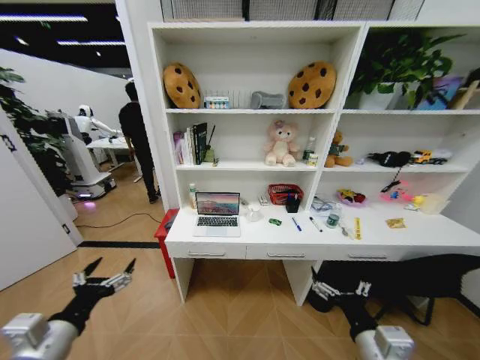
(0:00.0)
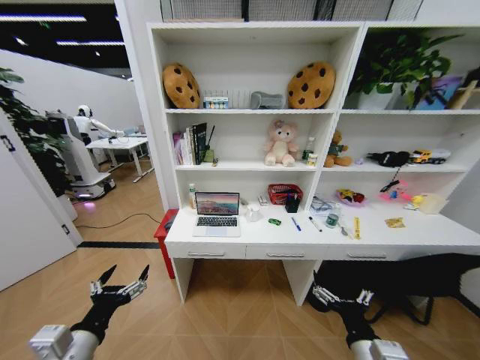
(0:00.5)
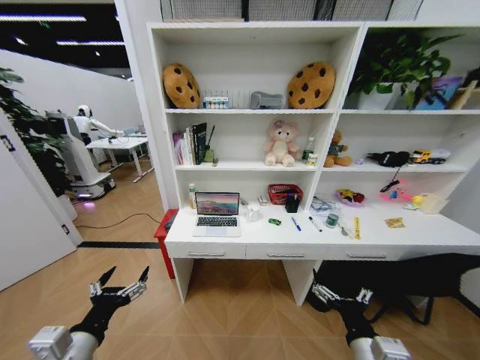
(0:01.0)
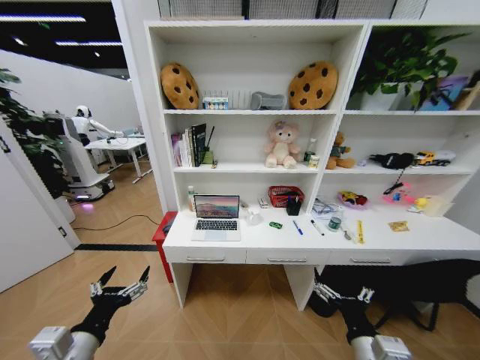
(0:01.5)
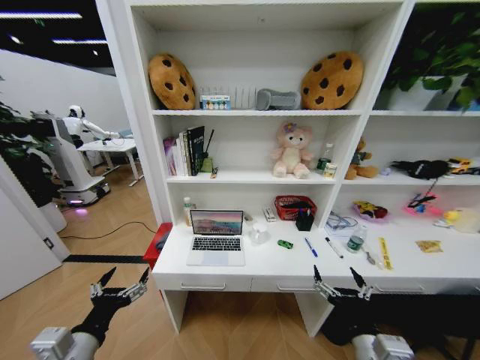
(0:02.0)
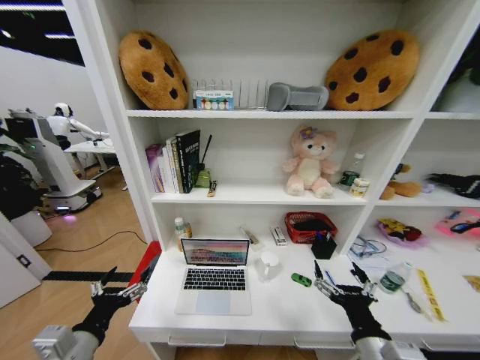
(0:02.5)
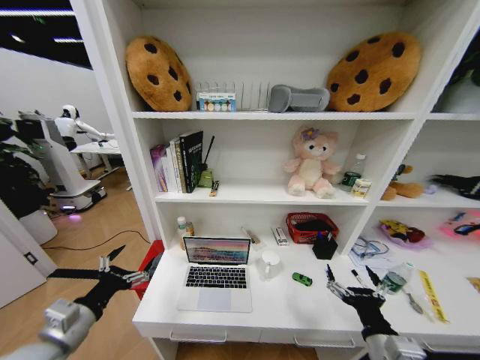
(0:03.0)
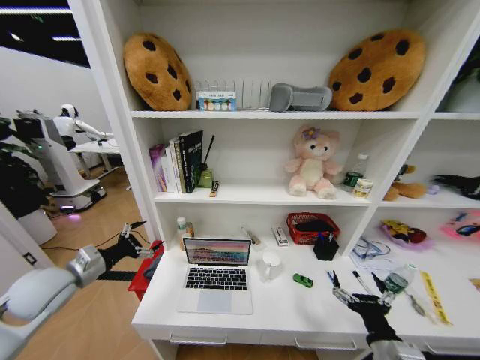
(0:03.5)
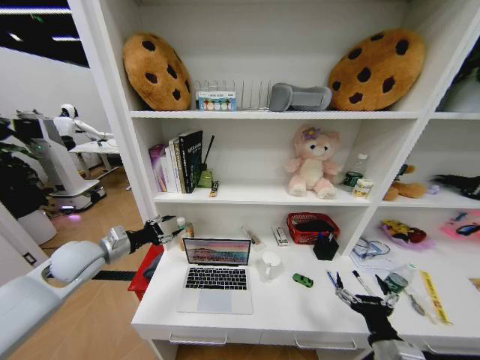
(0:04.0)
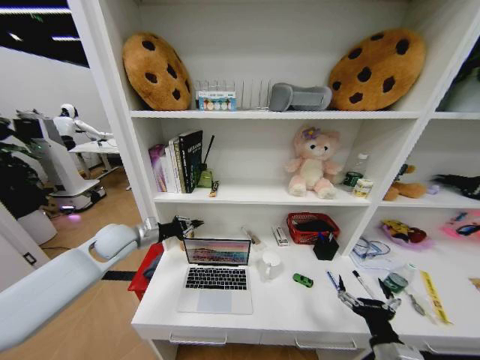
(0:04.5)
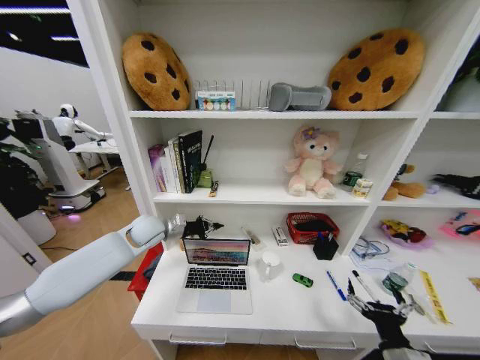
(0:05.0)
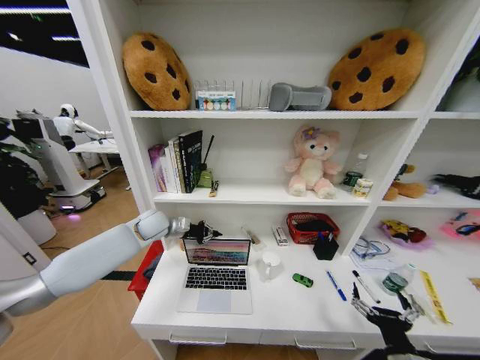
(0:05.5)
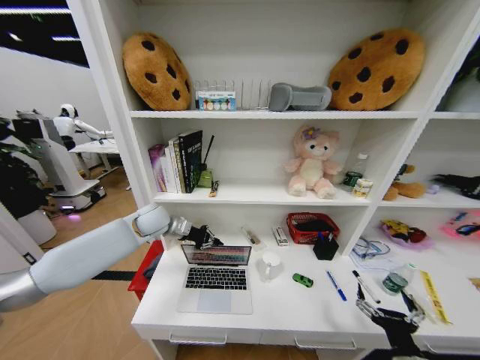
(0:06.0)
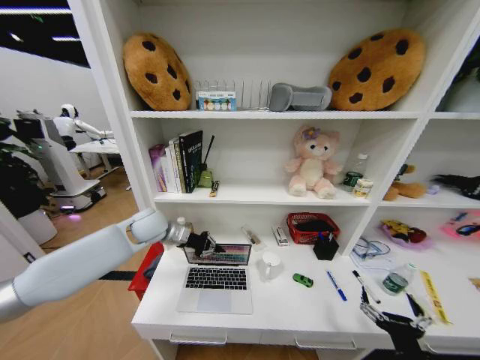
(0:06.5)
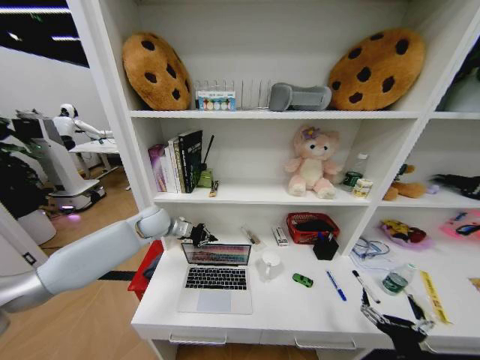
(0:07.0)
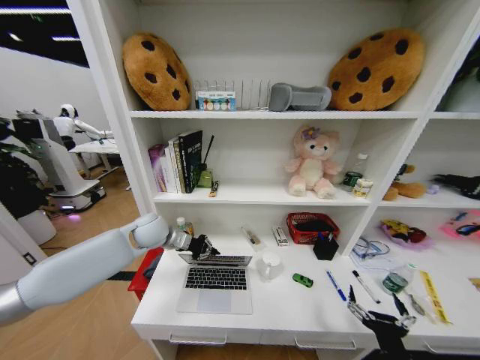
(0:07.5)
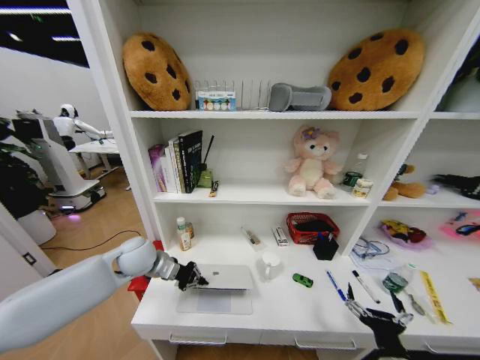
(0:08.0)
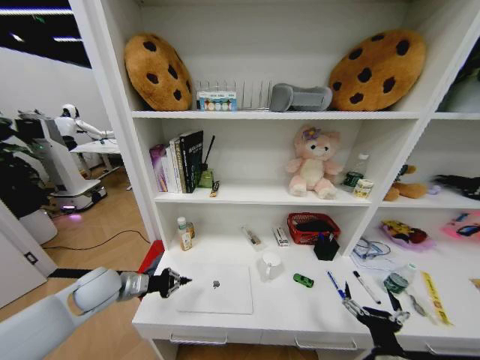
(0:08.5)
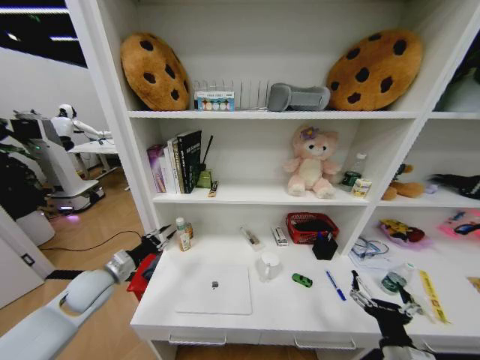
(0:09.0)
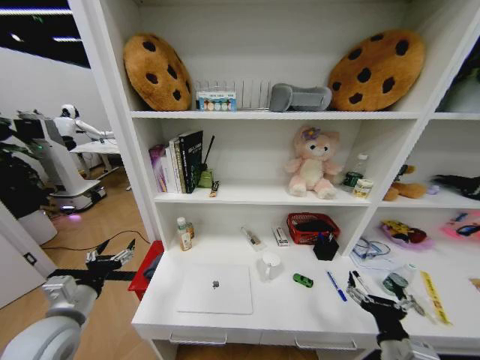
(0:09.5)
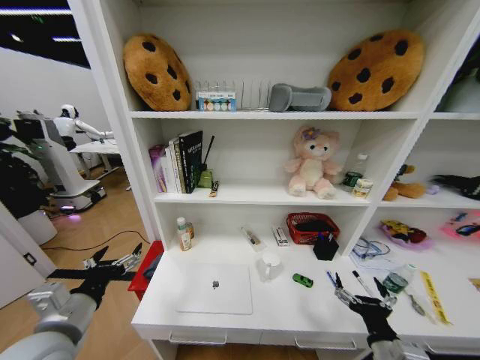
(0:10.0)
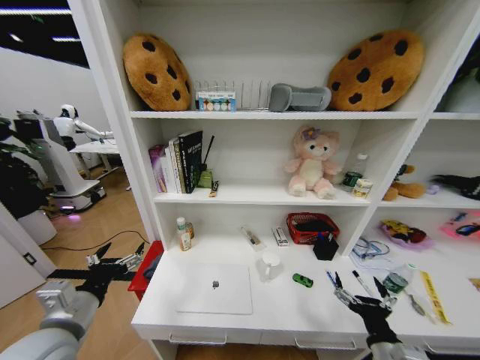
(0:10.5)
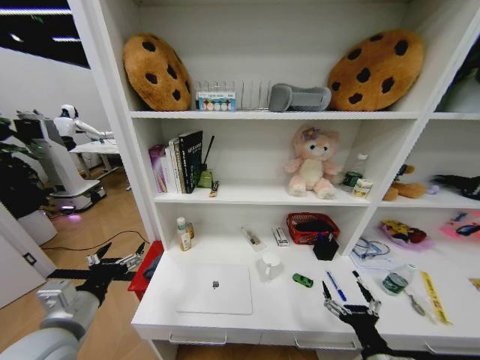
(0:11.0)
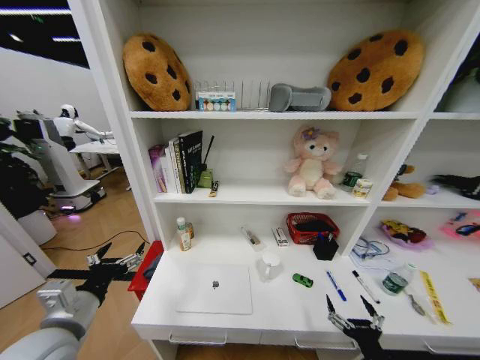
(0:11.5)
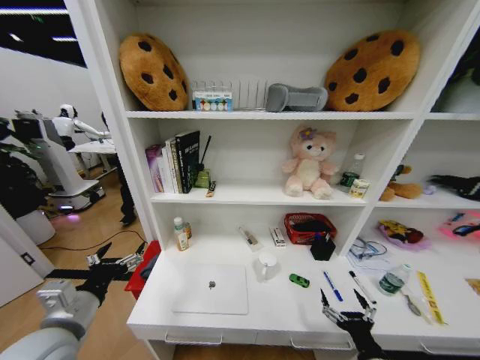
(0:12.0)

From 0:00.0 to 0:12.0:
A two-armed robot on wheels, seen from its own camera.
Task of the whole recording: Organize the objects on the table.
From 0:02.0 to 0:04.0: The right gripper shifts some 5 cm to the right, while the left gripper travels forward by some 25 cm, and closes its fingers.
From 0:04.0 to 0:06.0: The left gripper is displaced to the right and forward by approximately 20 cm, and closes its fingers. Meanwhile the right gripper shifts by roughly 5 cm.
From 0:06.0 to 0:08.0: The left gripper is displaced backward by approximately 10 cm.
From 0:08.0 to 0:10.0: The left gripper goes roughly 20 cm backward, and opens its fingers.
From 0:10.0 to 0:12.0: The right gripper heads downward, covering some 5 cm.

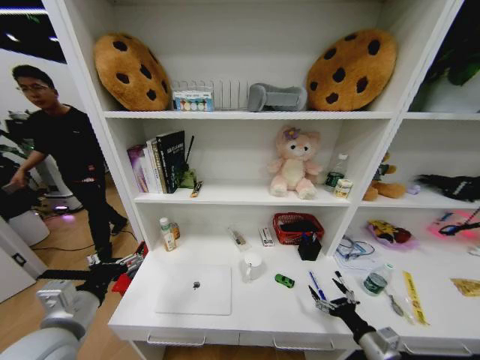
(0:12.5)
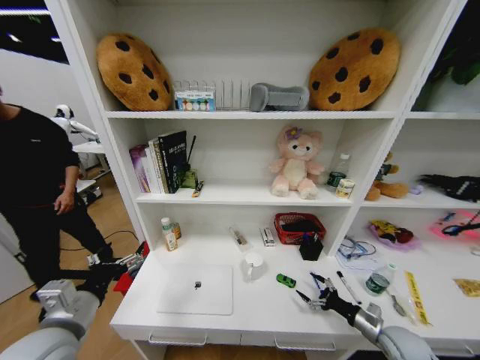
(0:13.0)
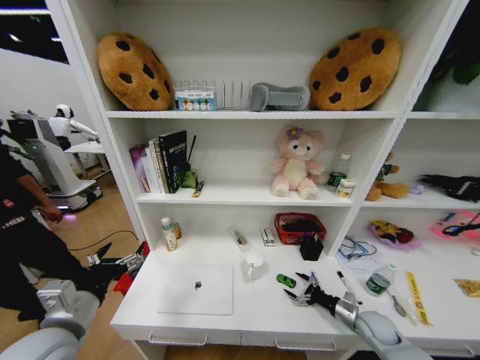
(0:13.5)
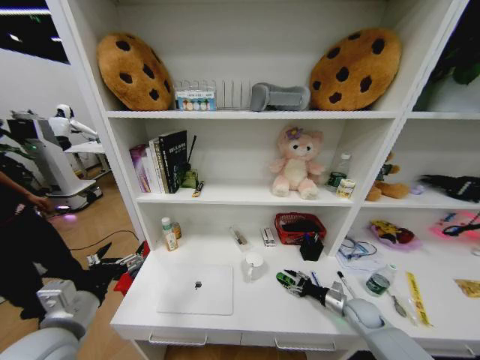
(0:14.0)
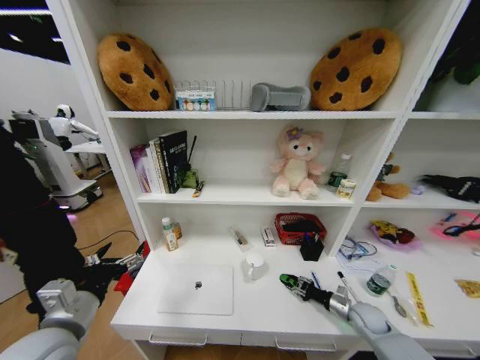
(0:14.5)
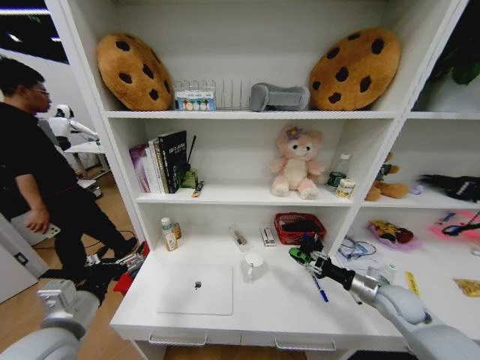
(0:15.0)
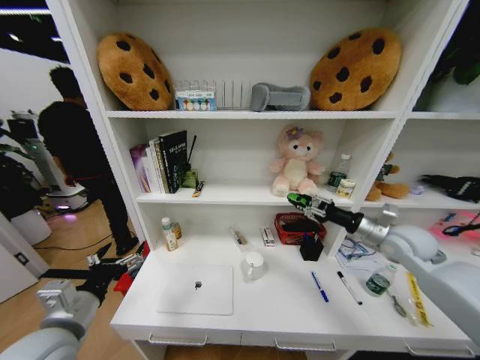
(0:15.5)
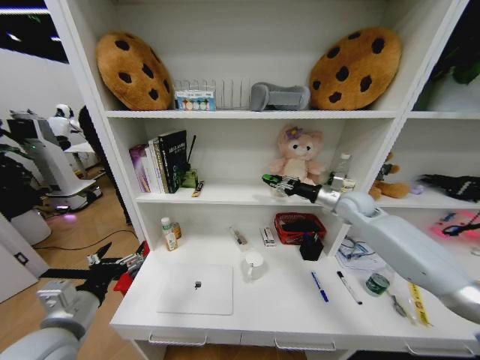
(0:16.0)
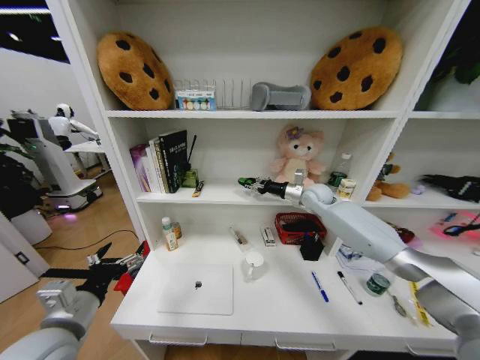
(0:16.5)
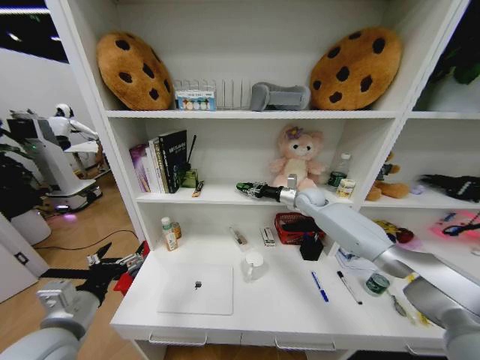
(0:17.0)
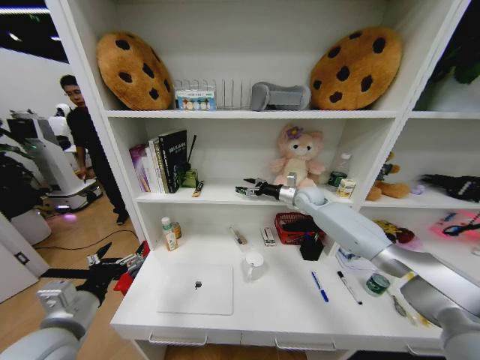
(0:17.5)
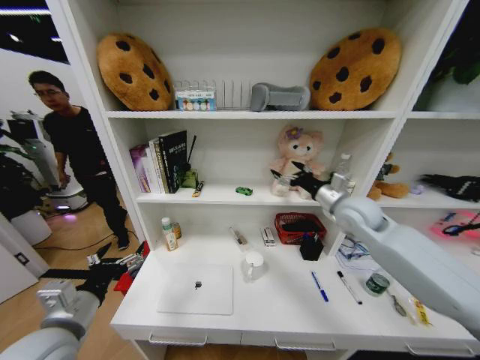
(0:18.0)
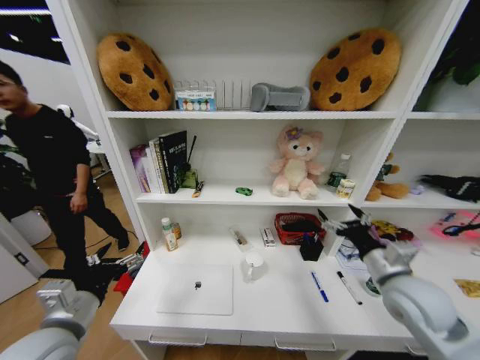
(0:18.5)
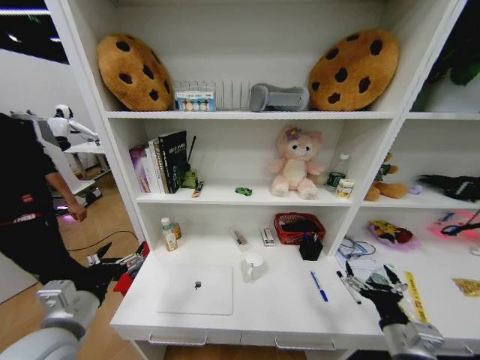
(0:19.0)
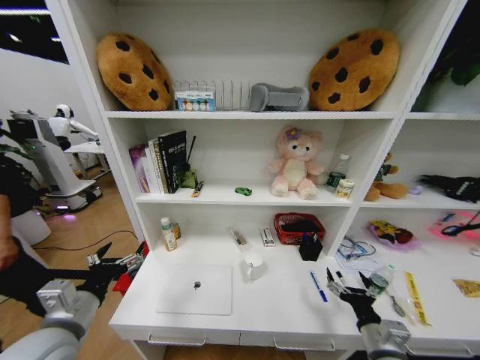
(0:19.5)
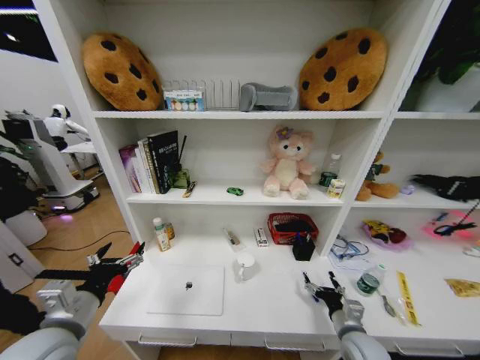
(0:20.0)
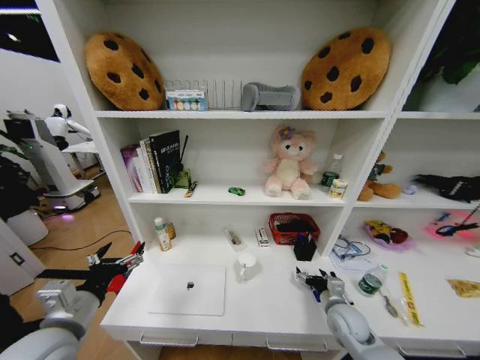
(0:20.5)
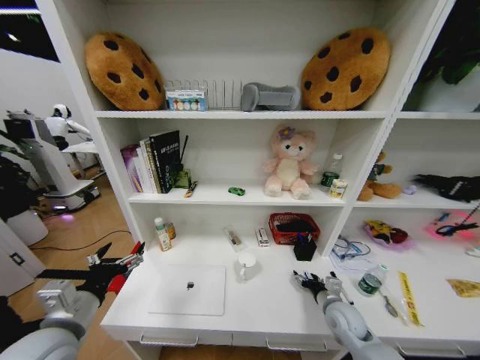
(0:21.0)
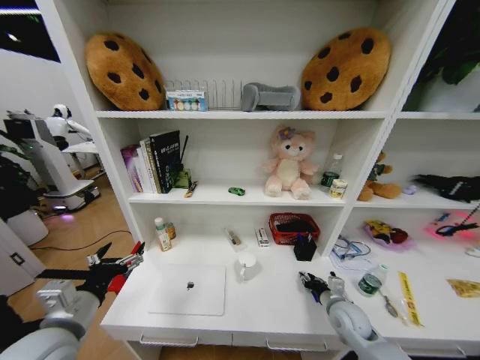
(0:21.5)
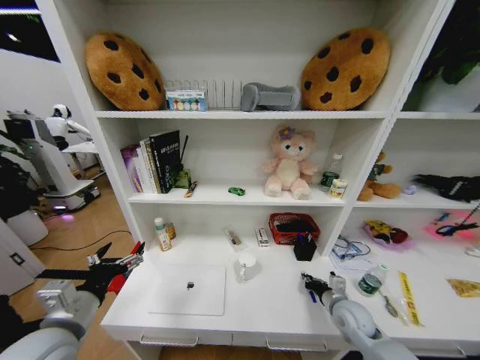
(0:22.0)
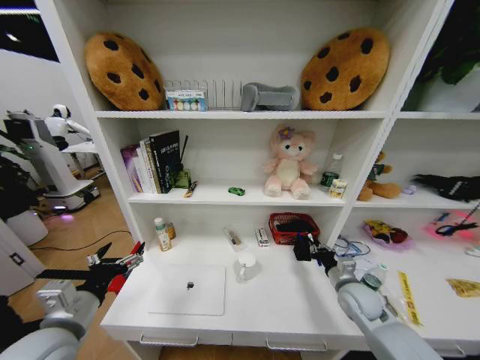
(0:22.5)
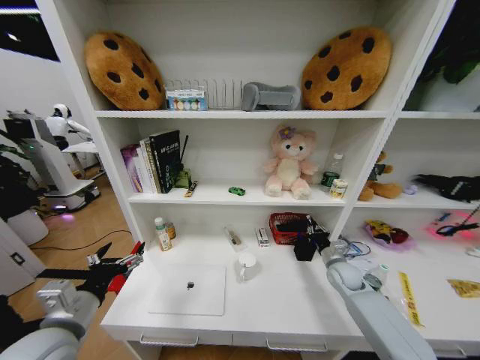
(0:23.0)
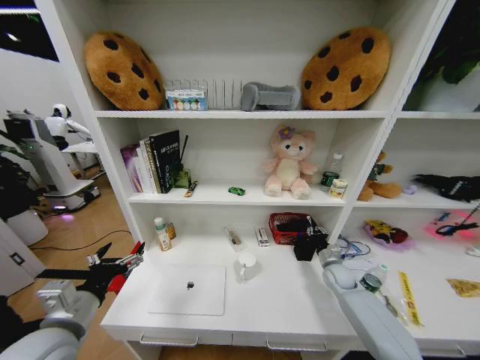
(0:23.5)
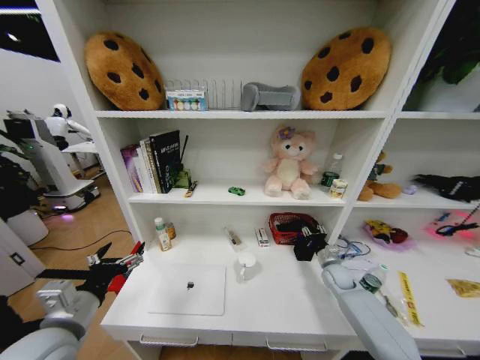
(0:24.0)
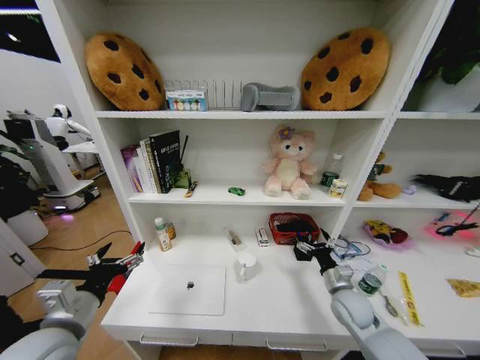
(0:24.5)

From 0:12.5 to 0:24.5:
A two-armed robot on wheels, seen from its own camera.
Task of the whole recording: Organize the objects on the table.
From 0:12.5 to 0:14.5: The right gripper shifts some 20 cm forward, to the right and downward, and closes up.
From 0:14.5 to 0:16.5: The right gripper goes some 40 cm upward, forward and to the left.
From 0:16.5 to 0:18.5: The right gripper moves backward, about 30 cm, and opens its fingers.
From 0:18.5 to 0:20.5: The right gripper is displaced downward by some 20 cm.
From 0:20.5 to 0:22.5: The right gripper goes roughly 5 cm upward, and closes.
From 0:22.5 to 0:24.5: The right gripper reaches some 10 cm forward, then returns, and opens its fingers.

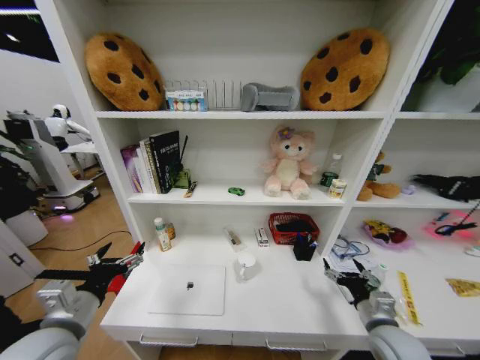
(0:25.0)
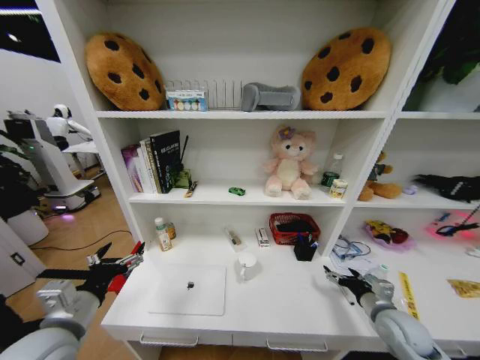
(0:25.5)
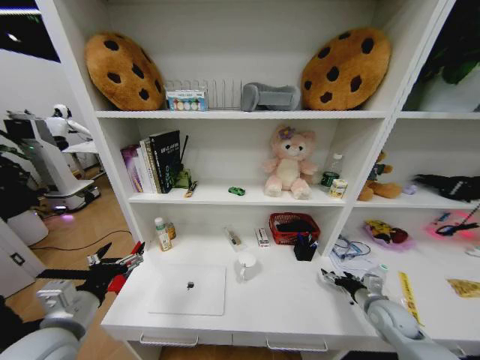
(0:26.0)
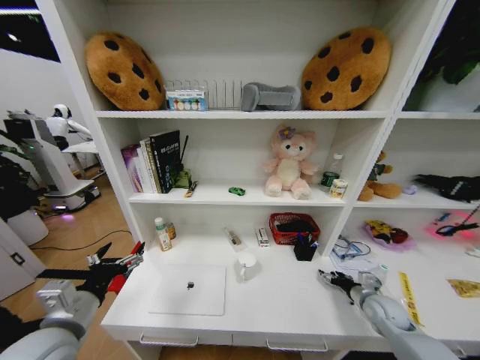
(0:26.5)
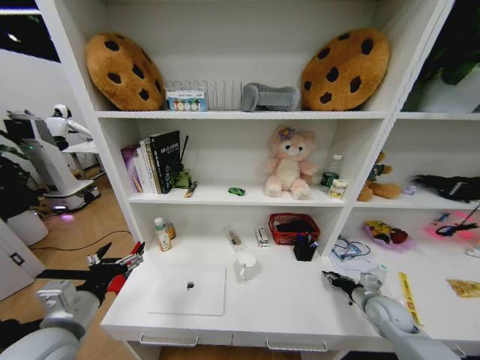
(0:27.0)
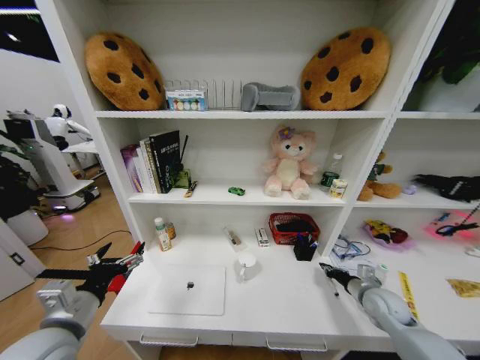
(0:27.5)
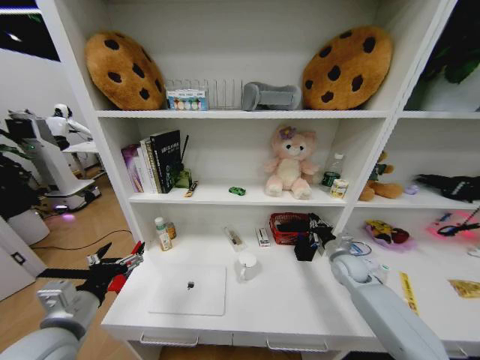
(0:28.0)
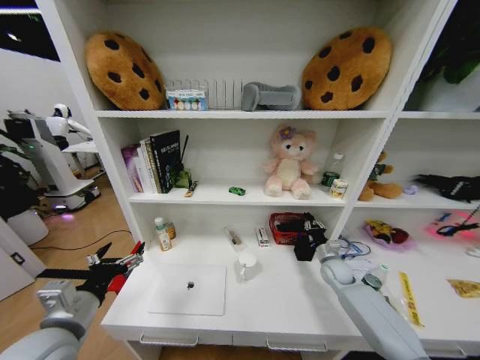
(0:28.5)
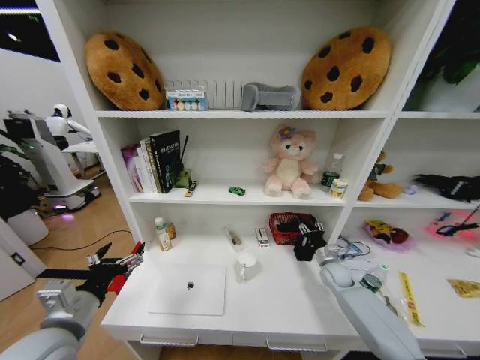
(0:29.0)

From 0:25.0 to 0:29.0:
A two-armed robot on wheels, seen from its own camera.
Task of the whole recording: Organize the objects on the table.
From 0:25.0 to 0:27.0: The right gripper heads forward, to the right and downward, covering about 15 cm, and closes.
From 0:27.0 to 0:29.0: The right gripper moves forward and to the left, some 15 cm.
